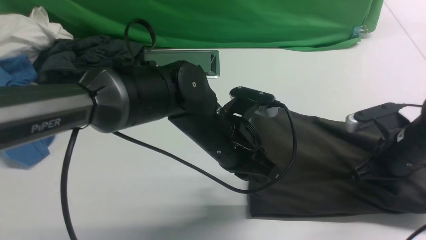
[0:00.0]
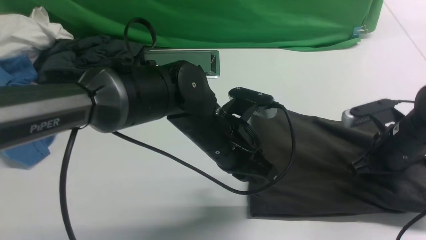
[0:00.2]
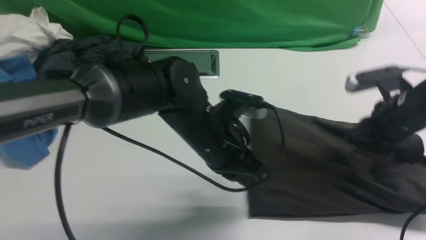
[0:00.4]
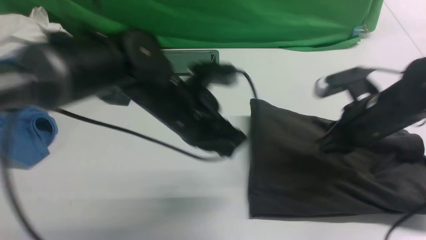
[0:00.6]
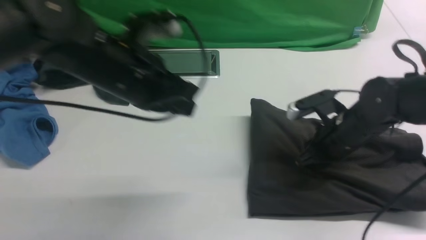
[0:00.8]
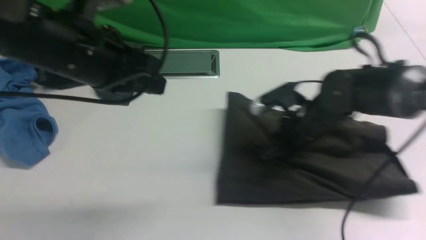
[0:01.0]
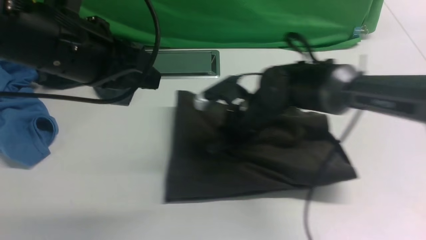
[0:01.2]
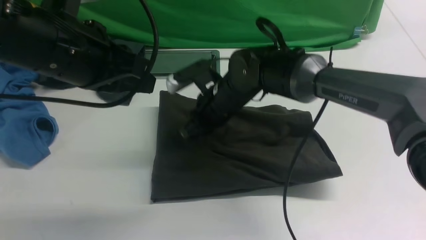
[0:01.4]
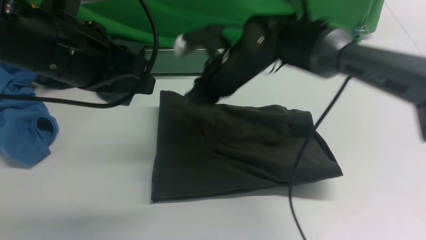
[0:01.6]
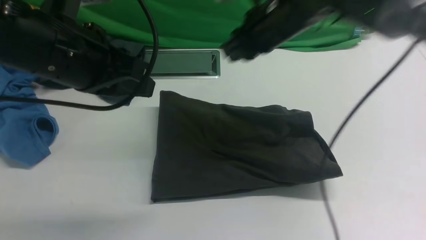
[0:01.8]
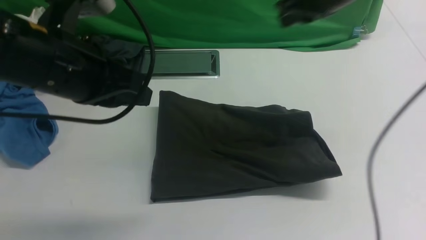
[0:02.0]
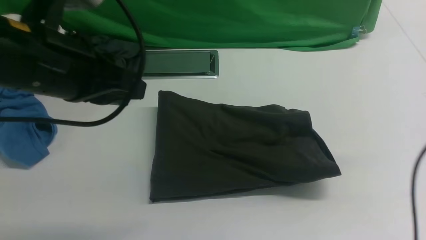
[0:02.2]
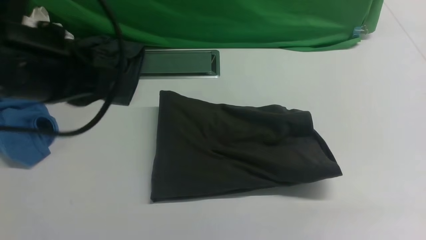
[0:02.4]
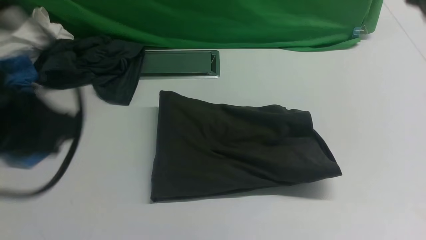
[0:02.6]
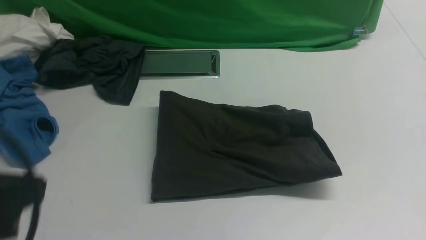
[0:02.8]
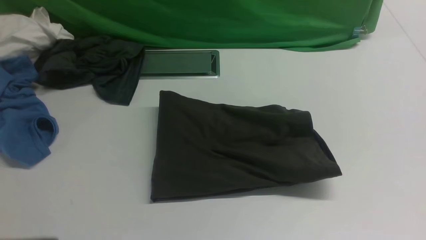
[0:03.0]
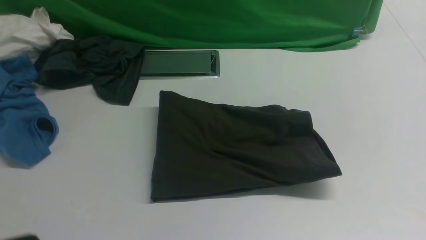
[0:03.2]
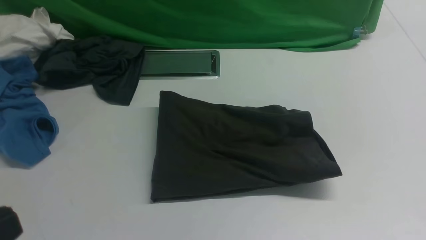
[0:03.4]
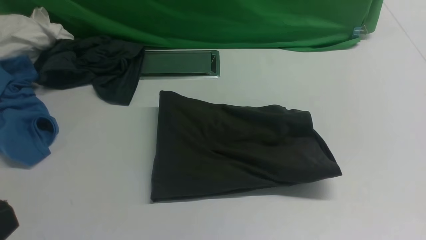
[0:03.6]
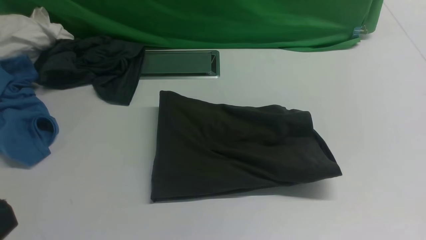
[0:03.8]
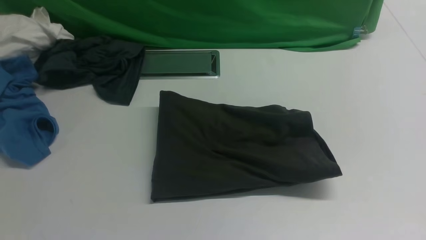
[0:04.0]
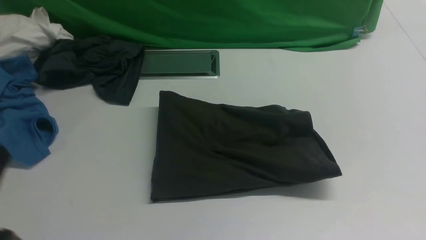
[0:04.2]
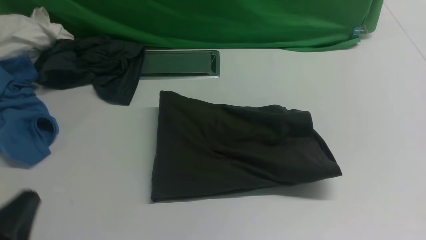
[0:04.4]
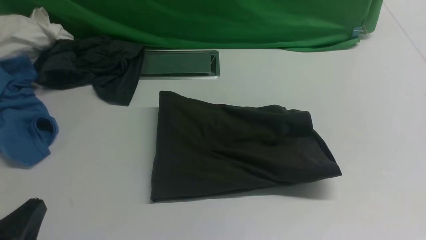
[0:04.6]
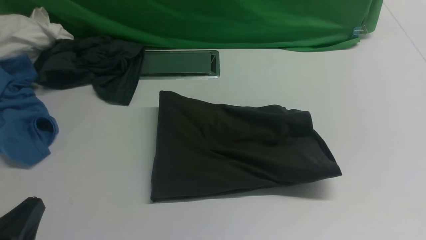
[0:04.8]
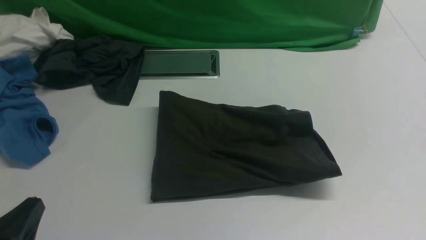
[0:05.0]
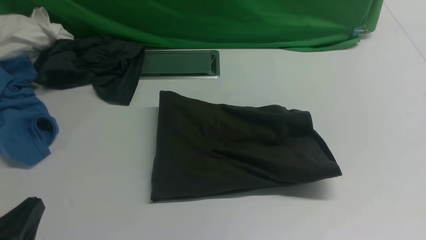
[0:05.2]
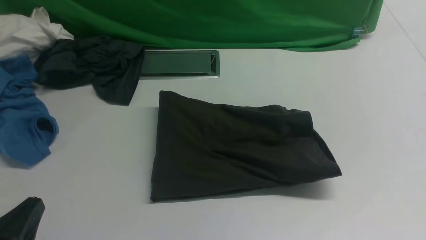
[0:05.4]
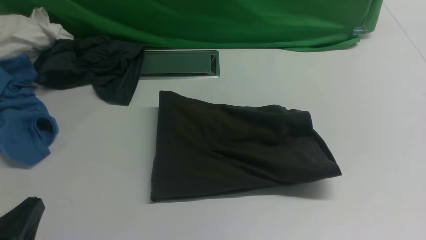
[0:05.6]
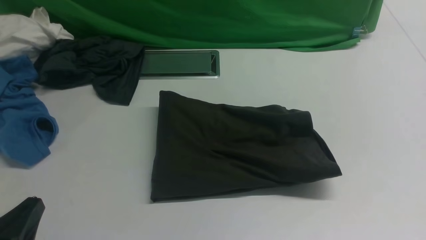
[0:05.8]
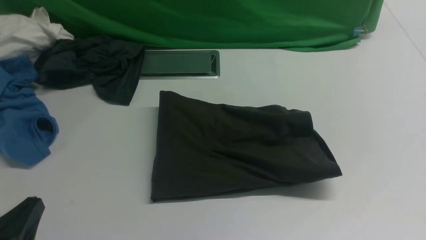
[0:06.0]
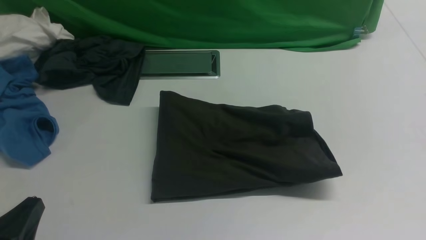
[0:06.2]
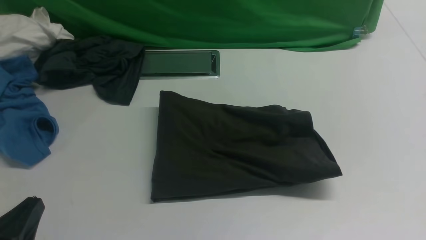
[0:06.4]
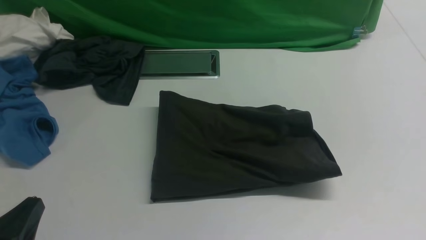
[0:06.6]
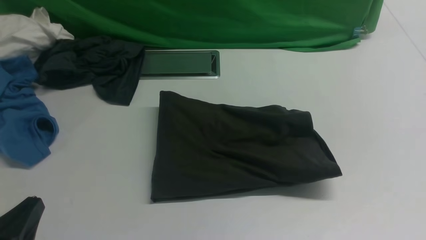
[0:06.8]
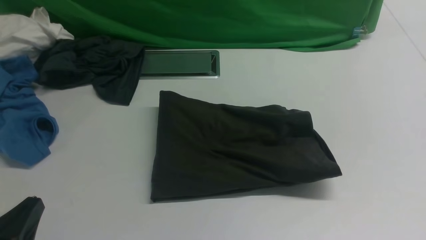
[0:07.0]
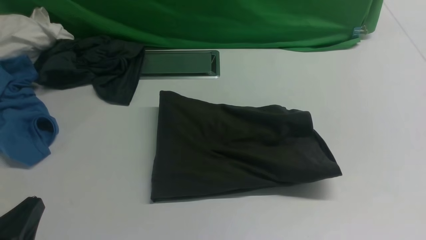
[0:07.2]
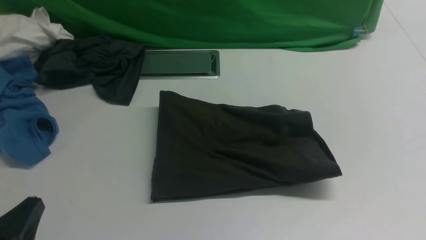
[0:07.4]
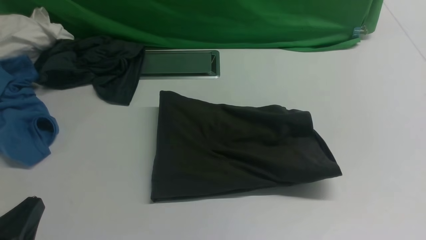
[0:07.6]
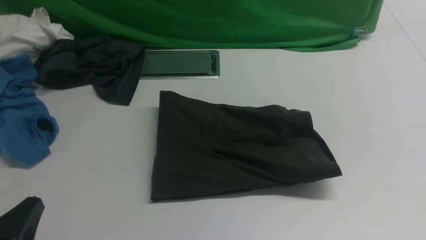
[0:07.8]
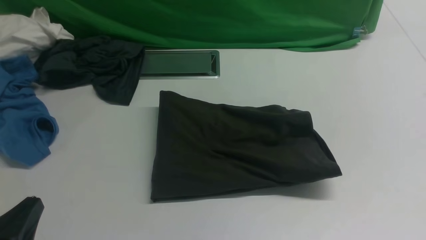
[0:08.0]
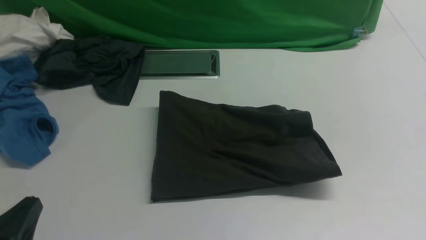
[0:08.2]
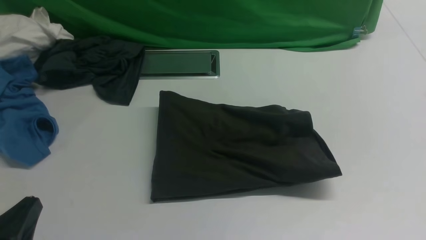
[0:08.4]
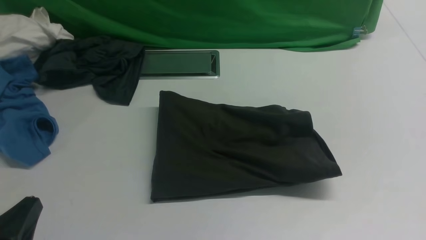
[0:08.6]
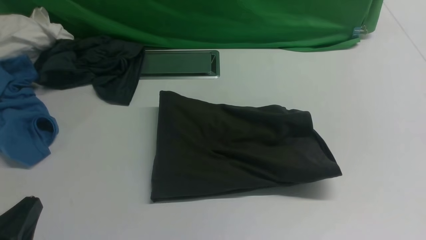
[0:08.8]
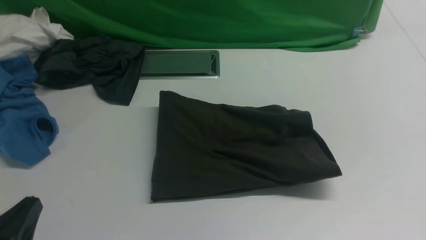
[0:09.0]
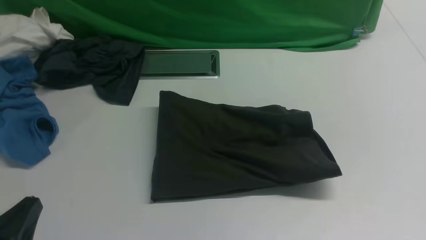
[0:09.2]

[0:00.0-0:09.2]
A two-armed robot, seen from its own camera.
0:00.0 to 0:01.6: The left gripper shifts some 20 cm to the left and upward, while the right gripper shifts about 25 cm to the left and forward.
0:01.6 to 0:03.0: The left gripper travels backward by approximately 20 cm, while the right gripper heads backward and to the right, covering about 40 cm, and closes its fingers.
0:03.0 to 0:04.6: The left gripper goes some 15 cm downward.
0:07.6 to 0:09.2: Both grippers stay about where they are.

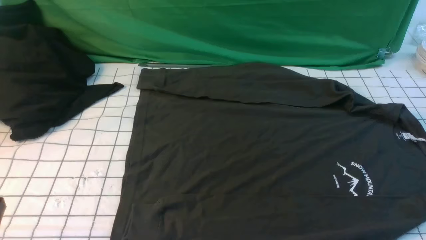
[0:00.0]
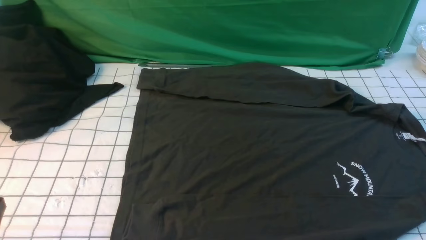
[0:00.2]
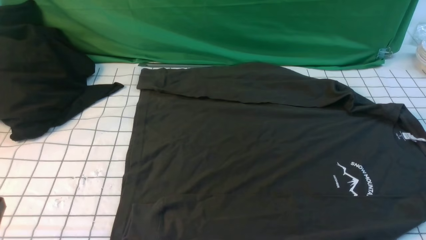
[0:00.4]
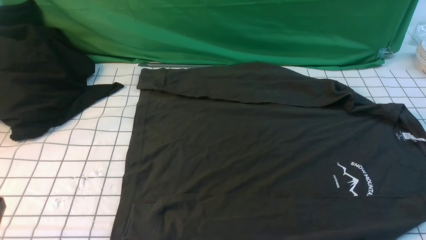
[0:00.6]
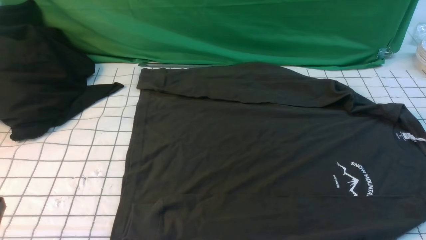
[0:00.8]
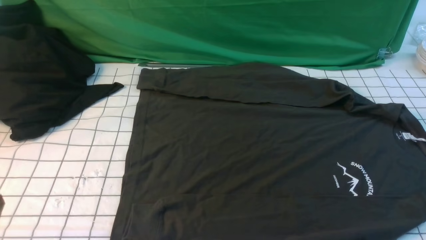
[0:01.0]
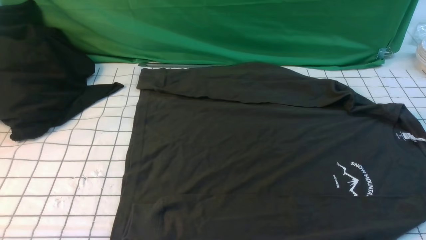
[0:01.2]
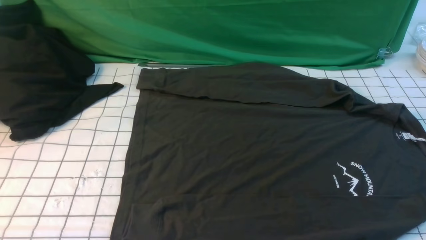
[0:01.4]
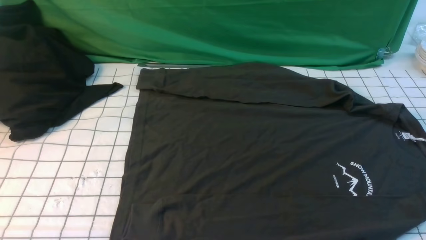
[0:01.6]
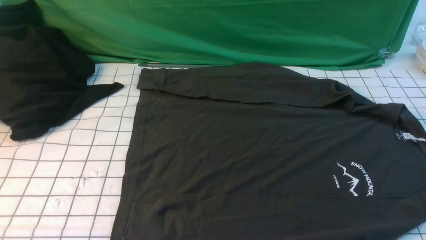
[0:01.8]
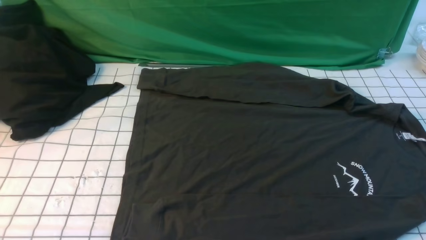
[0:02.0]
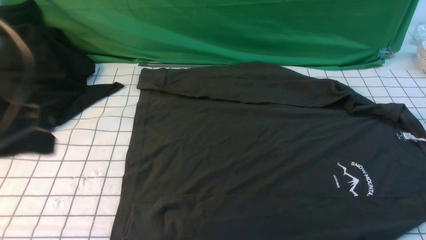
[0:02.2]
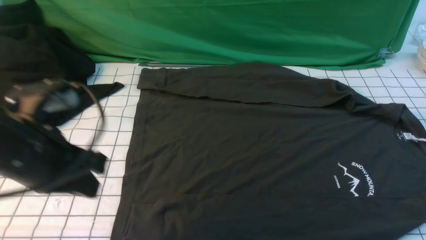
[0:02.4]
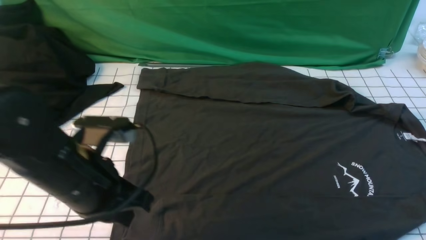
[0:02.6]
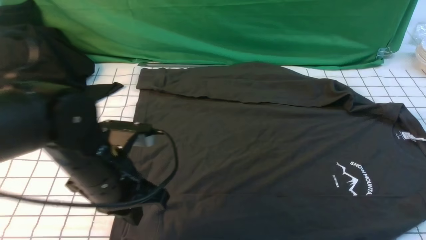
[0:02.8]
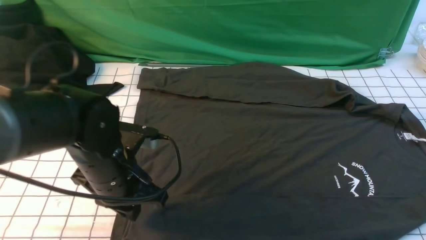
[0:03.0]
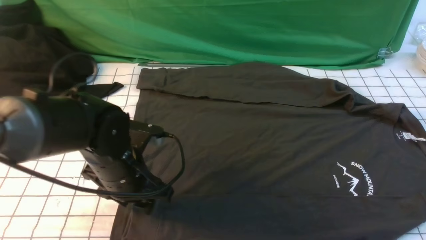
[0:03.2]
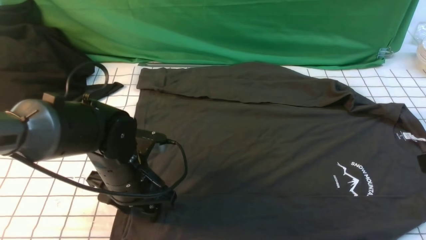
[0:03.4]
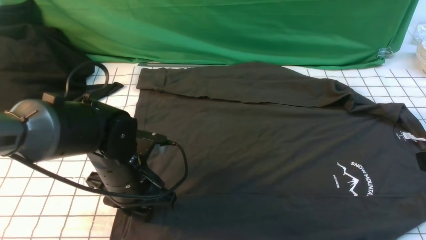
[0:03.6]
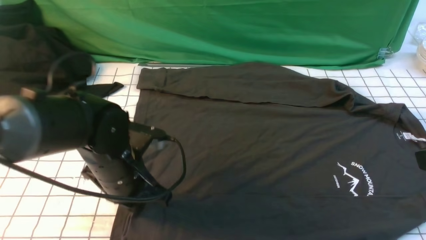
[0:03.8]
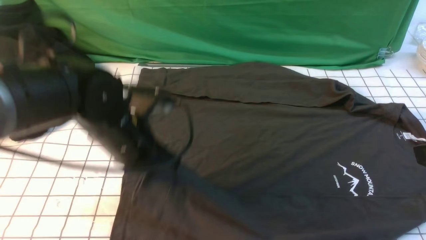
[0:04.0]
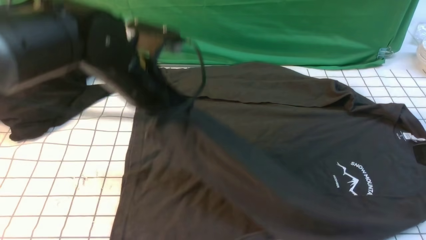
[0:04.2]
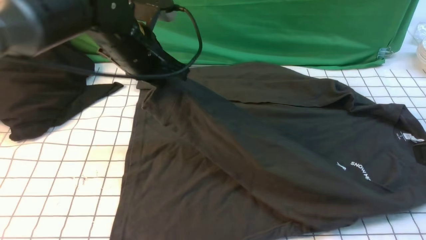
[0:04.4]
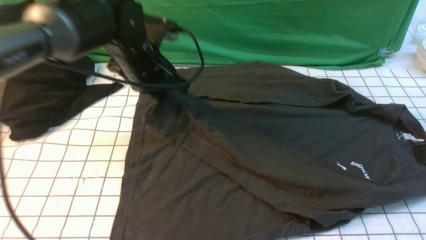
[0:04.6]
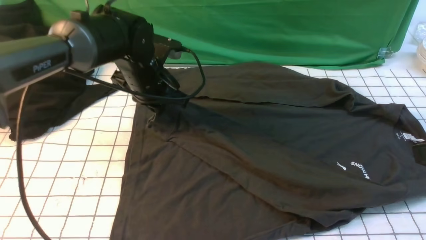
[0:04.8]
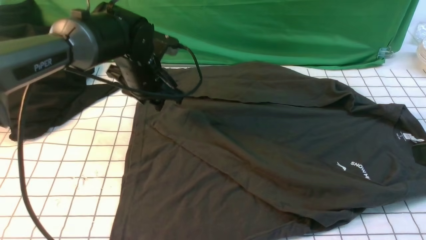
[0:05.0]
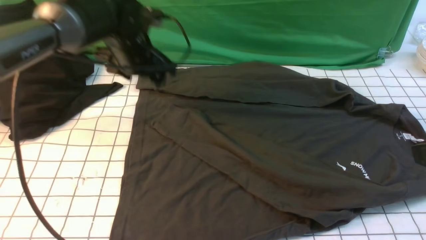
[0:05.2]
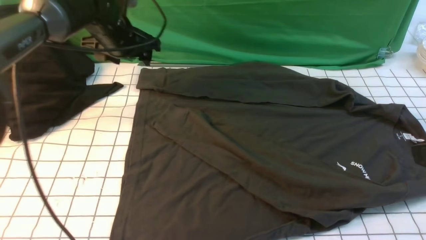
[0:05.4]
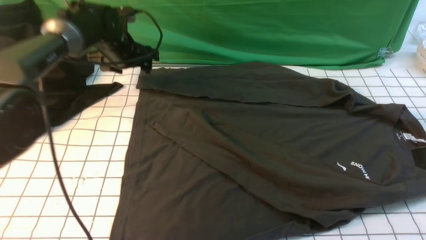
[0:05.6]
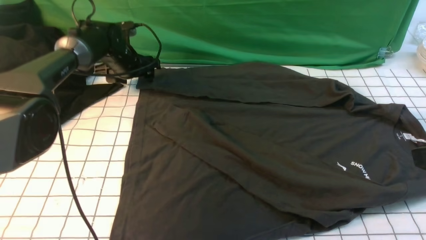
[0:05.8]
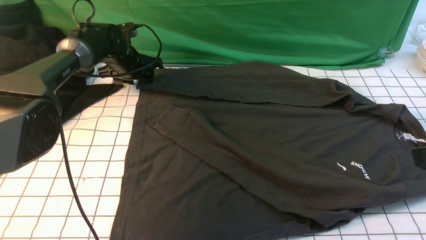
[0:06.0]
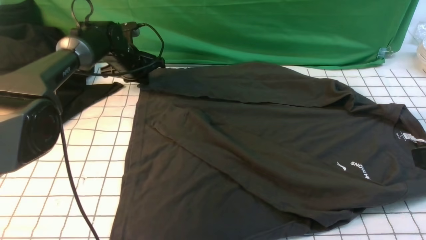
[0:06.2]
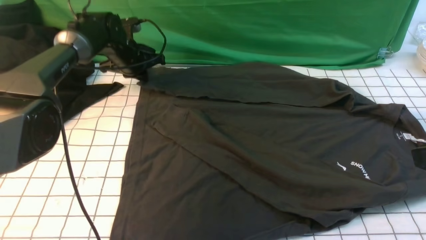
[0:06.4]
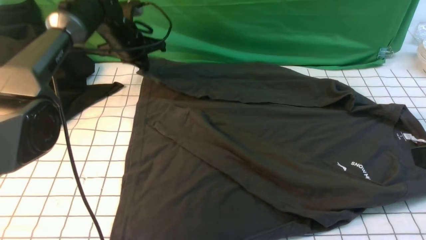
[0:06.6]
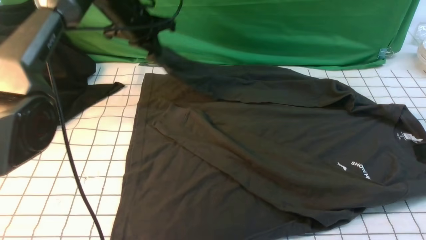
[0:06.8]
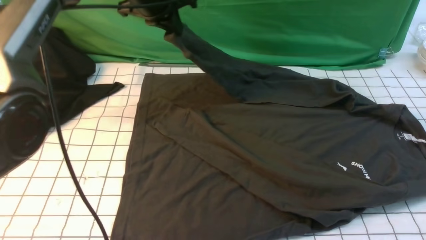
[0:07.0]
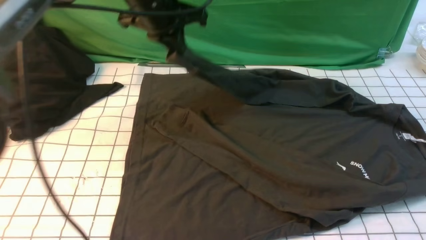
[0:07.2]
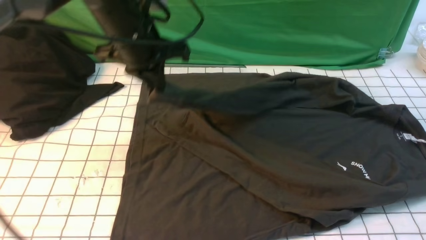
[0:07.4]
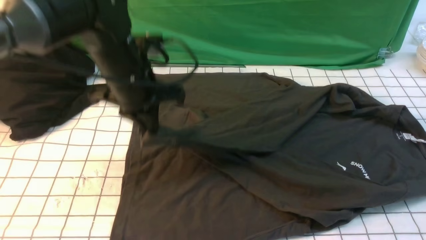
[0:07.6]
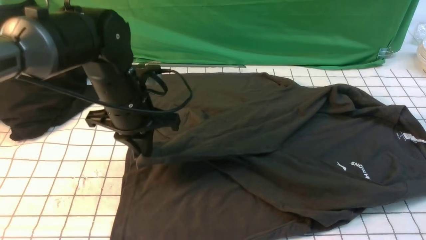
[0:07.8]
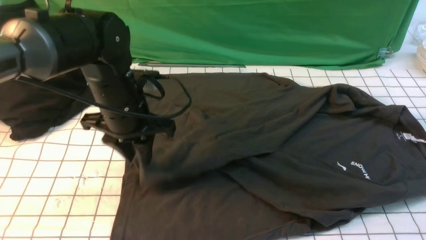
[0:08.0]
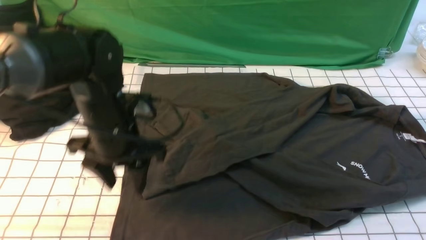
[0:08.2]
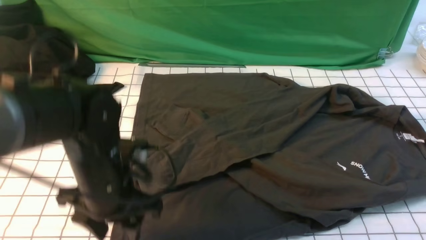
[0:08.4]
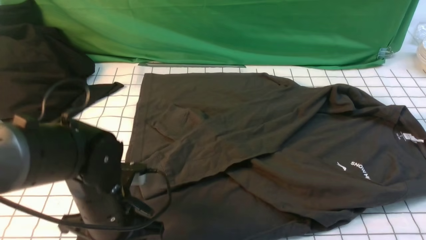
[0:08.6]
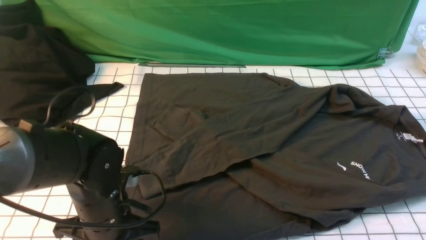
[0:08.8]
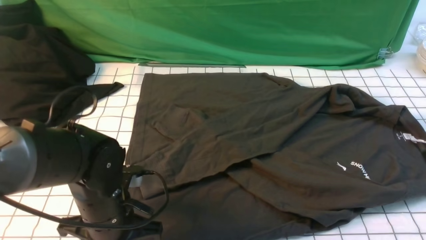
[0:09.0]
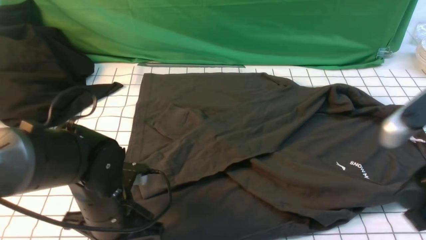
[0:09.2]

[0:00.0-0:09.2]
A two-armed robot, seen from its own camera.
Step, 0:00.0 to 0:03.8: use the left arm to clamp the cuff closest to it.
Step, 0:04.0 to 0:05.0: use the left arm to drag and place the cuff at the centered position on the left edge of the fabric.
Step, 0:05.2 to 0:06.4: use the left arm to clamp the cuff farthest from it.
0:01.6 to 0:03.0: The right gripper moves upward, about 15 cm, and closes up; the left gripper goes about 25 cm forward, to the right and downward, and opens.
0:03.0 to 0:04.6: The left gripper goes roughly 15 cm forward and upward, and opens, then closes once more.
0:04.6 to 0:06.2: The left gripper heads forward, downward and to the left, covering roughly 20 cm, and opens and closes again.
0:06.2 to 0:07.6: The left gripper moves backward and upward, roughly 20 cm.
0:07.6 to 0:09.2: The left gripper shifts some 20 cm backward and downward, and opens, then closes once more. The right gripper moves about 5 cm.
